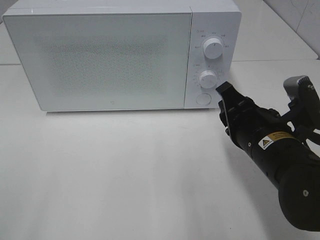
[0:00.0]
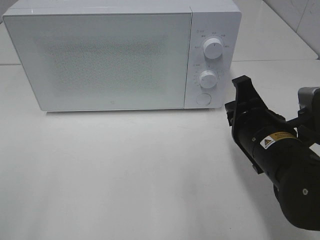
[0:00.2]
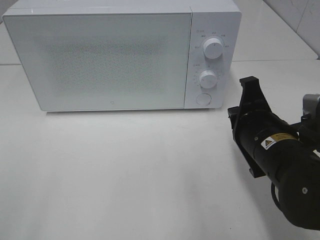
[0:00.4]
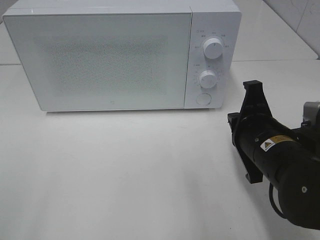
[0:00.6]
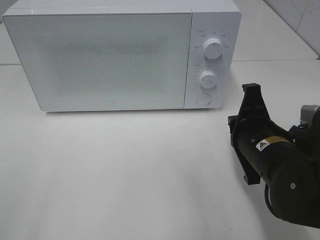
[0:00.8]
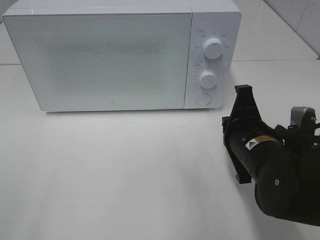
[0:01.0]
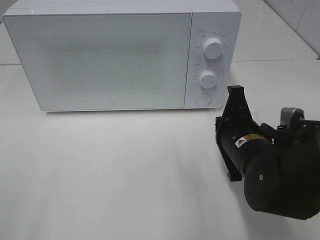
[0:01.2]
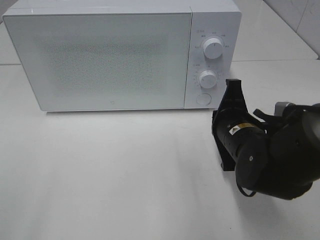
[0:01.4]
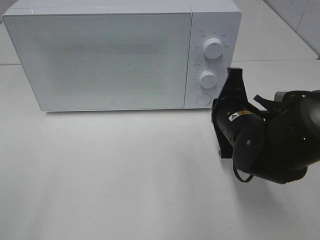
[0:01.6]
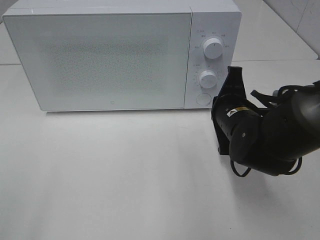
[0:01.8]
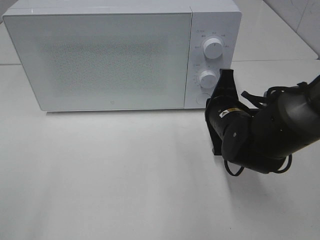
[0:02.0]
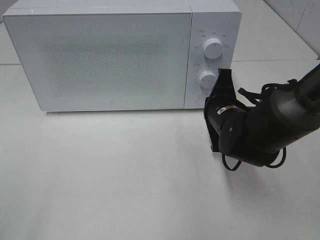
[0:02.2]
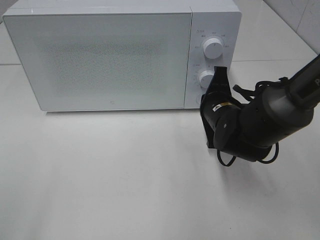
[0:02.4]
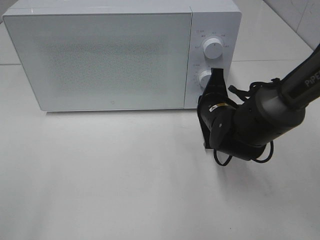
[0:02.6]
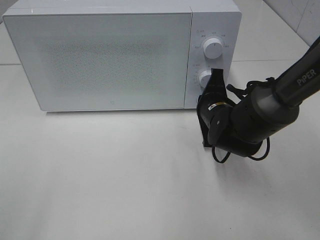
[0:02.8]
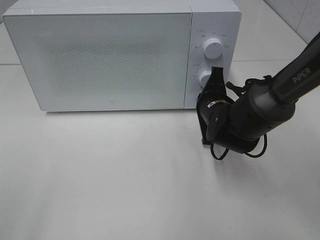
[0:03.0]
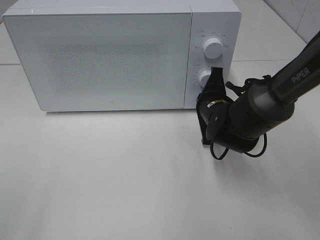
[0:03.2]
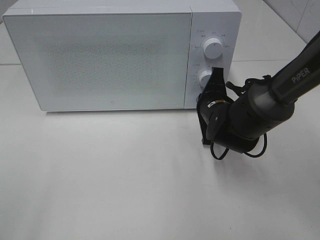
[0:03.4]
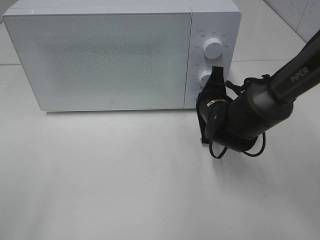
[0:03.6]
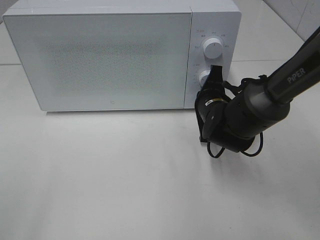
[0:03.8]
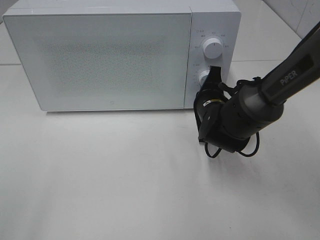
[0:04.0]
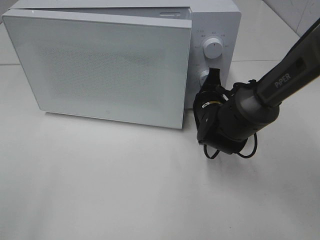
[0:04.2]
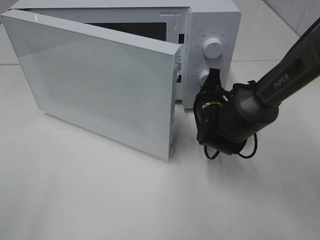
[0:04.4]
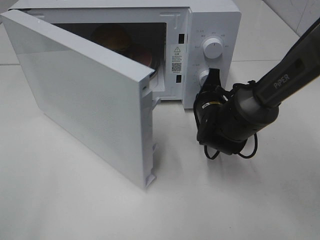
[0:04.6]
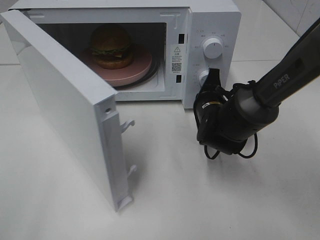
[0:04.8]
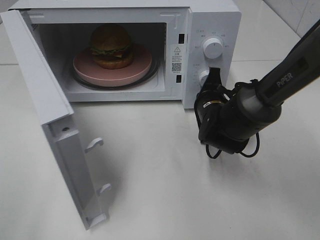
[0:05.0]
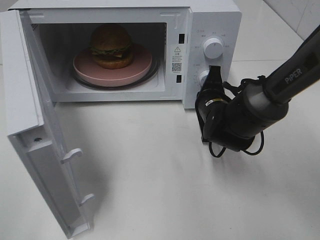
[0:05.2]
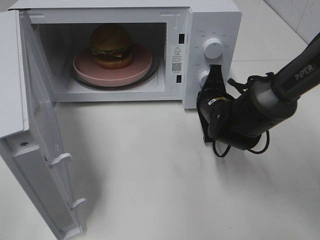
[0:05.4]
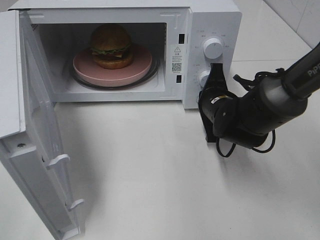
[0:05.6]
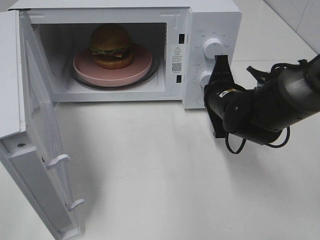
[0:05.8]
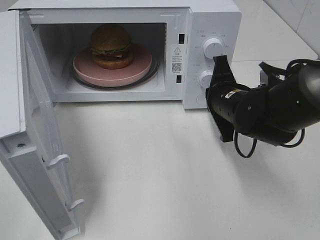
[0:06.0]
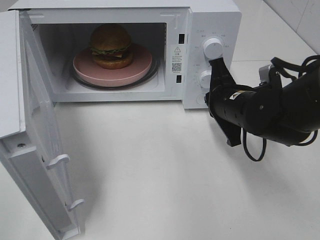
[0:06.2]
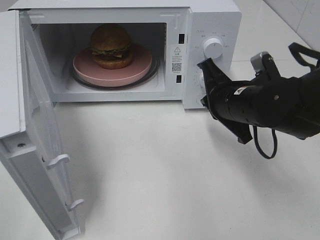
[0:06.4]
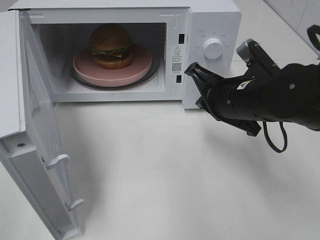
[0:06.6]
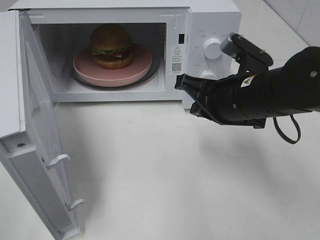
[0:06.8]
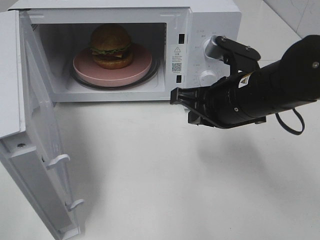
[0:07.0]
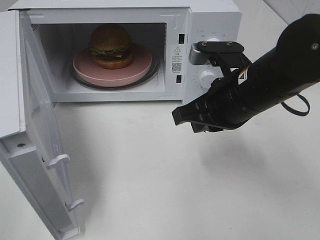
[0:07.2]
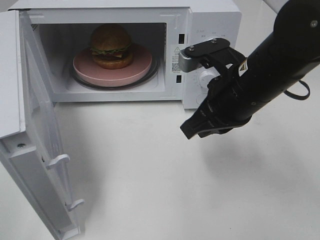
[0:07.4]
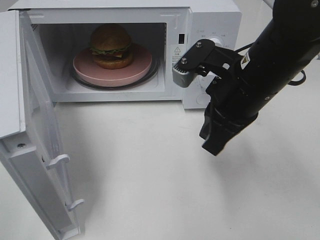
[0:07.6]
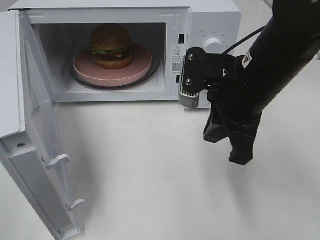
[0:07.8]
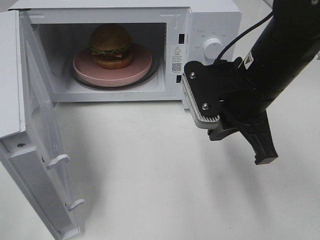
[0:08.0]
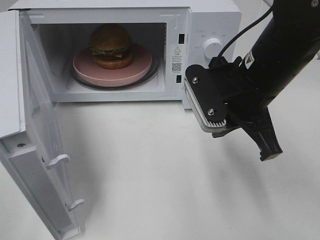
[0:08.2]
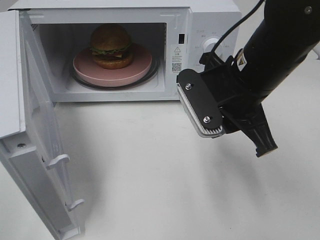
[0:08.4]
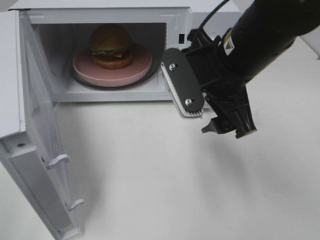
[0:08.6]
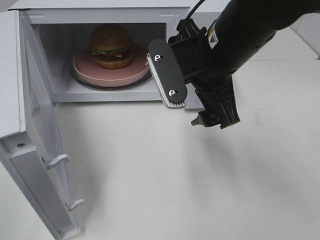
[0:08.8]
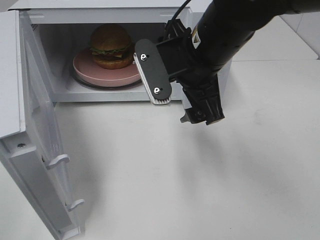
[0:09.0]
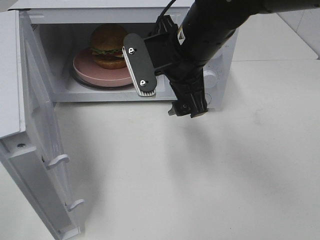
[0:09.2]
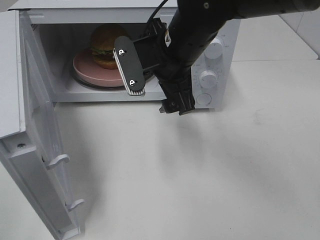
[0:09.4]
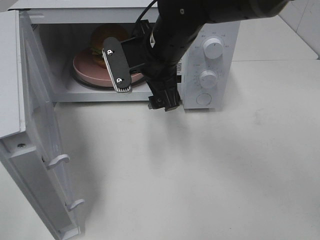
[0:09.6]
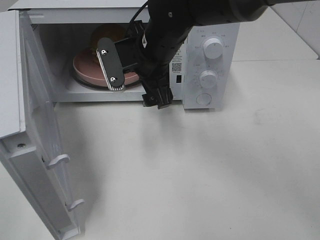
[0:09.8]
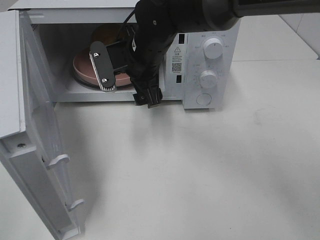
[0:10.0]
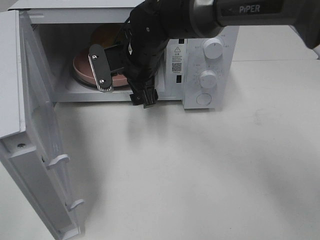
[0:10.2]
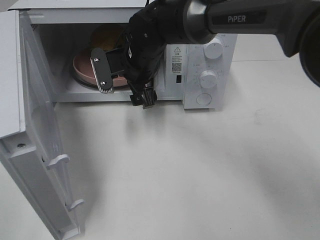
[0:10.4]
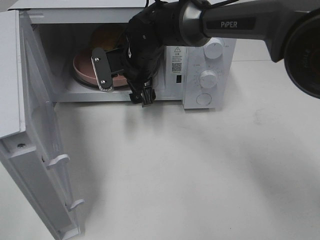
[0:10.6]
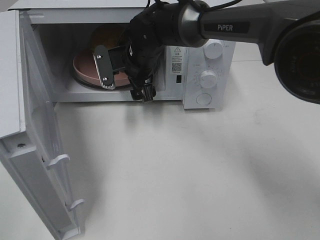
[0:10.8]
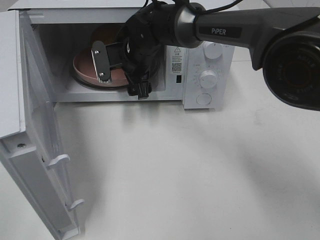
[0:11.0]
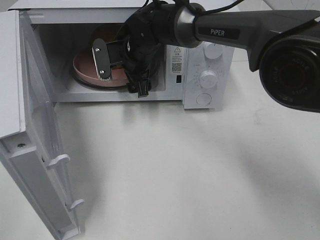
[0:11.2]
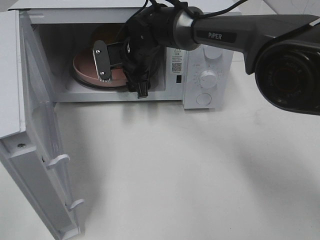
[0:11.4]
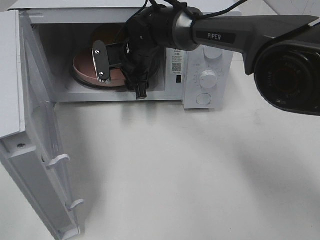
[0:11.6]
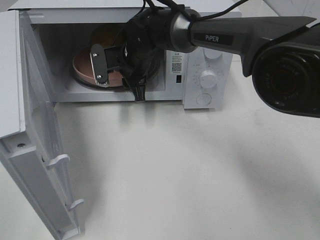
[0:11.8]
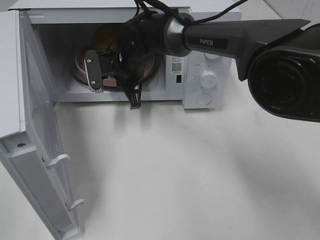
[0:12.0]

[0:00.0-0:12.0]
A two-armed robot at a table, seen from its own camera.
Task of the whole recording: Heat the burger.
Step, 0:00.0 to 0:05.6: Right hand: press the switch.
Step, 0:05.8 to 0:12.0: Right hand: grab the plate with the hamburger.
0:00.0 to 0:01.6: The right gripper moves forward, roughly 5 cm.
0:01.6 to 0:03.0: The right gripper is displaced forward by about 5 cm.
0:03.0 to 0:04.4: The grippers make only small movements.
0:04.4 to 0:06.0: The right gripper travels upward by some 5 cm.
0:06.0 to 0:07.6: The right gripper is displaced upward and backward by approximately 10 cm.
0:07.6 to 0:09.0: The right gripper moves to the left, about 5 cm, and opens.
0:09.0 to 0:10.4: The right gripper travels forward, to the left and downward by some 15 cm.
0:10.4 to 0:12.0: The right gripper closes.

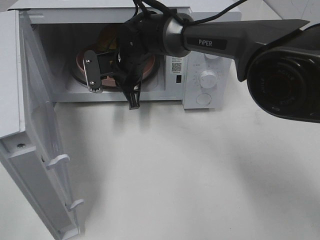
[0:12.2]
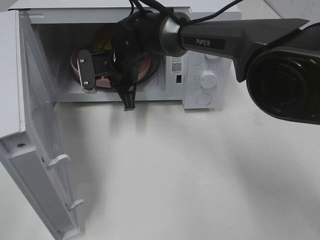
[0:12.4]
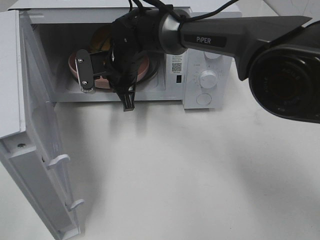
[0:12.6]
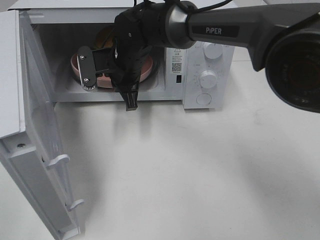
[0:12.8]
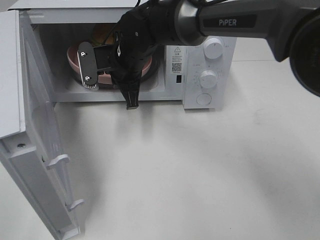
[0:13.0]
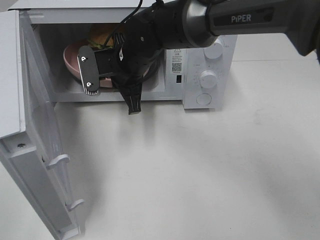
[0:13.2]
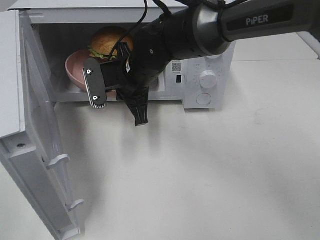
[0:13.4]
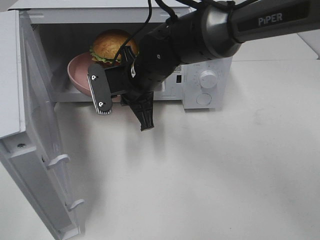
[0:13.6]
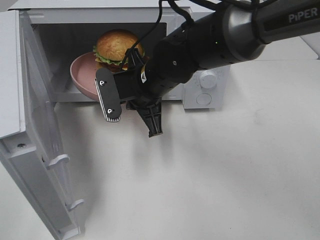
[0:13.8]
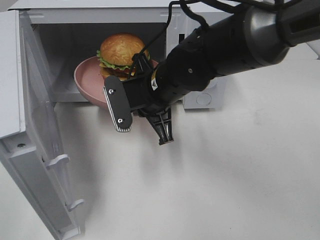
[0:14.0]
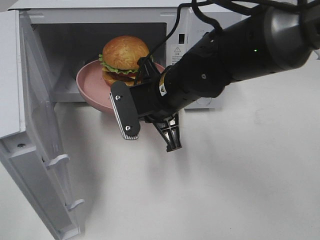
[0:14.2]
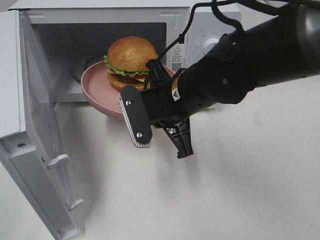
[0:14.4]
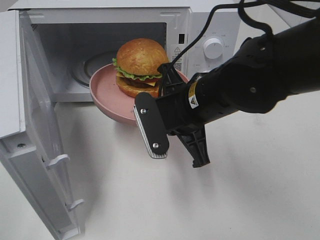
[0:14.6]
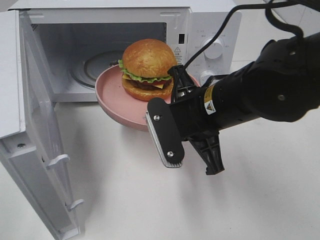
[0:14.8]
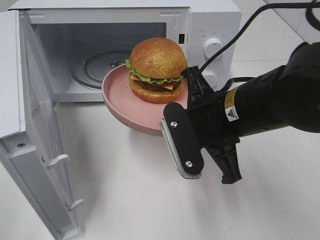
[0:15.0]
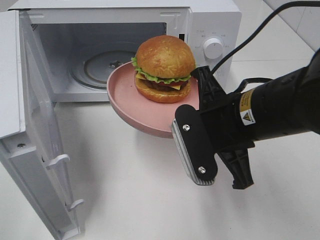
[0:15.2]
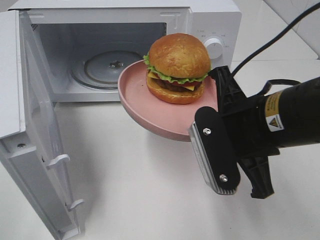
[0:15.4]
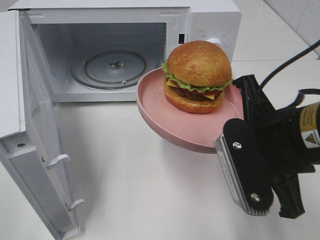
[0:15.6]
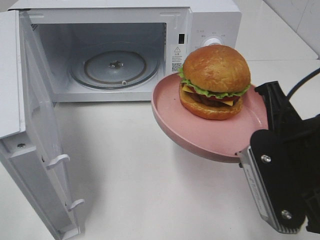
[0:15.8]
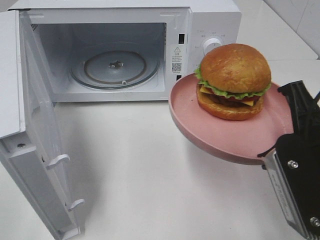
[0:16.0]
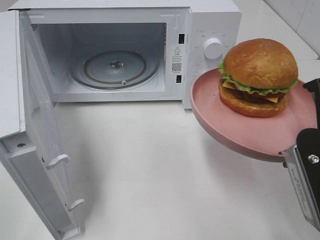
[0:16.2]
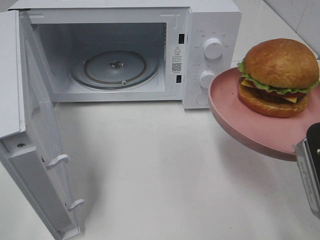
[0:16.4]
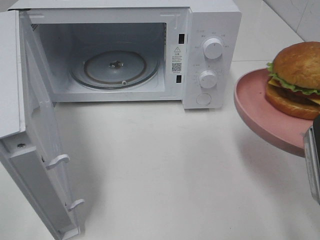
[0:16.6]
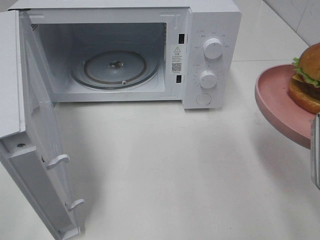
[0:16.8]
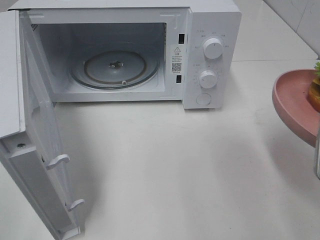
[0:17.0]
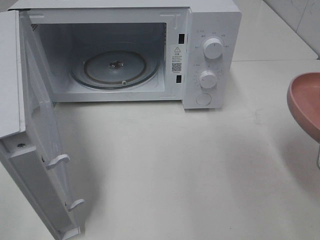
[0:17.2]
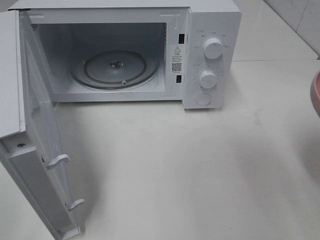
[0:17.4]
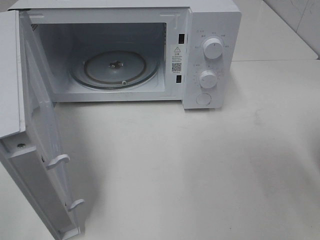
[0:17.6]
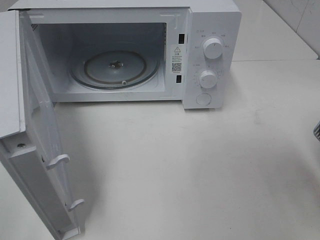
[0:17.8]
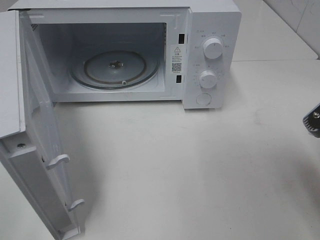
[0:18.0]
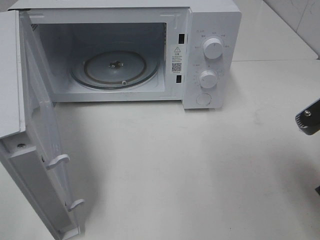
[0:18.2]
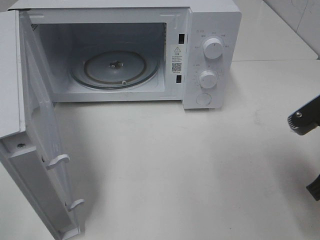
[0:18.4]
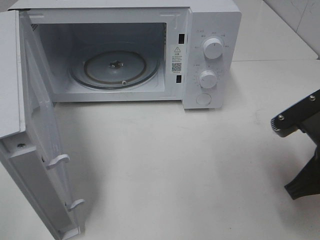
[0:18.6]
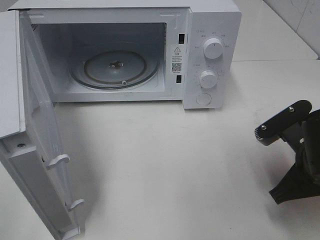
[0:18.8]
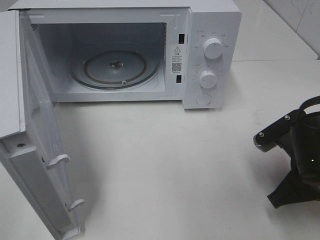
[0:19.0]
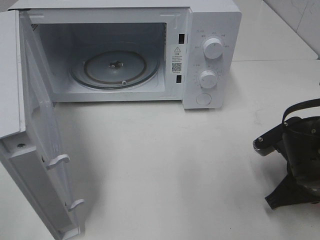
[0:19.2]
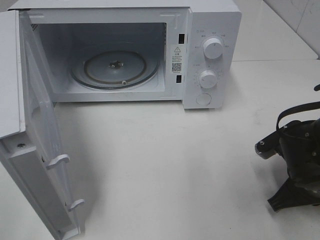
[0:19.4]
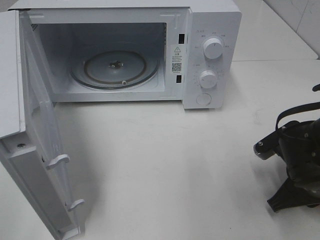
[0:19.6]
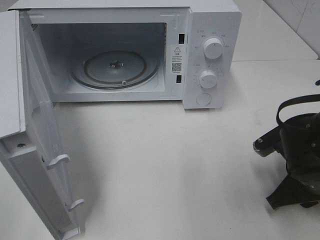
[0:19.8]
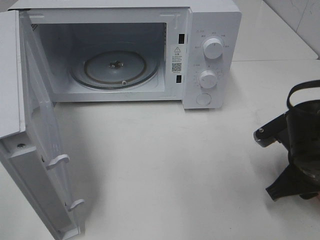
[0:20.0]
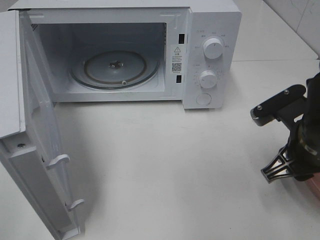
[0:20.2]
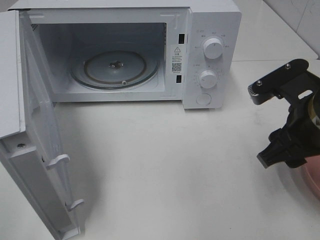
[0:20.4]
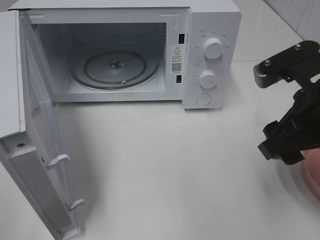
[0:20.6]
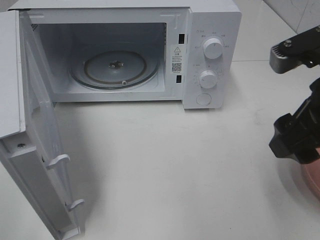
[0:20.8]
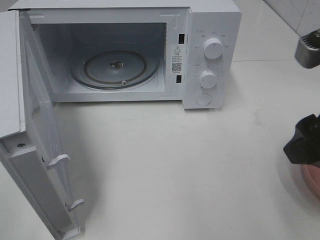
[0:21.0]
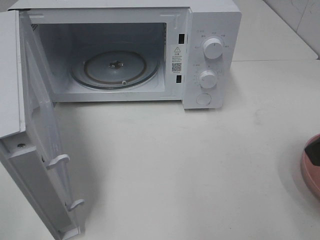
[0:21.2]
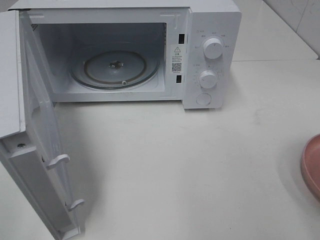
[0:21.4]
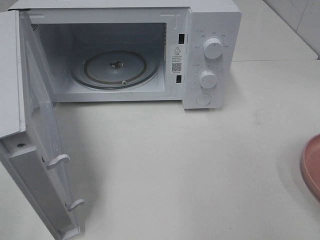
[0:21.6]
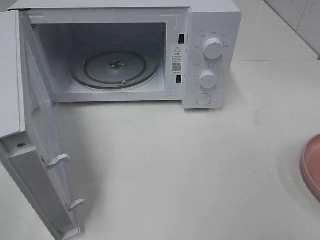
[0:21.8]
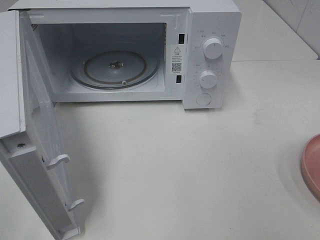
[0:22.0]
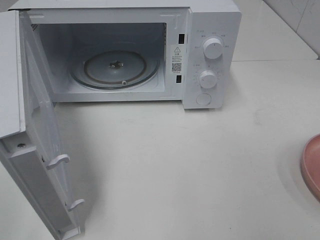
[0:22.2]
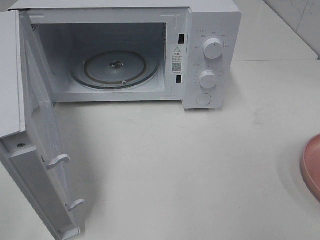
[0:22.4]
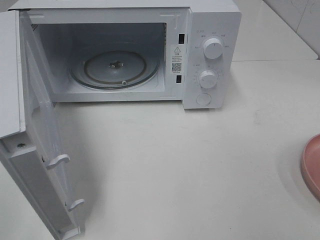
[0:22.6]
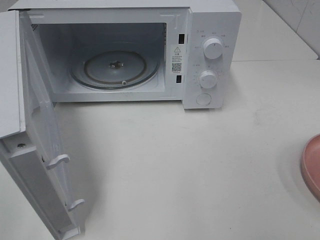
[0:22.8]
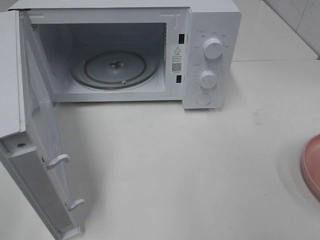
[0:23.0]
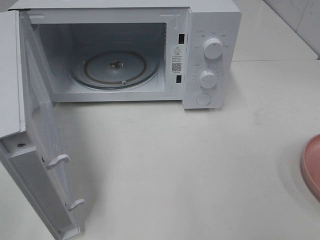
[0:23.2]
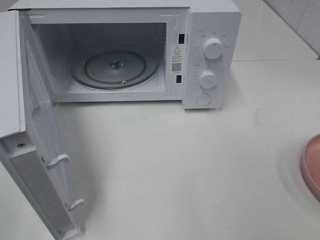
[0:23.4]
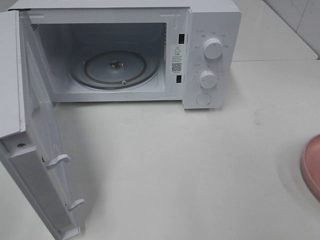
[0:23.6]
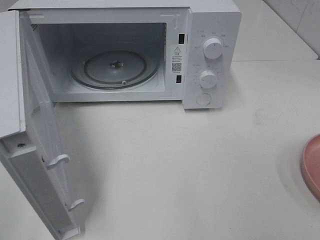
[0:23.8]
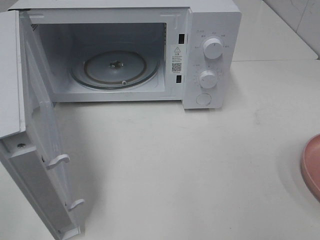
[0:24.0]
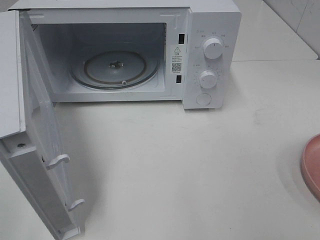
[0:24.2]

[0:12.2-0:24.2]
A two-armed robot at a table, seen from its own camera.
Task of the whole recording: Heat the burger.
Step, 0:12.2 to 0:19.6: Right hand: place the plate on the table.
0:12.2 to 0:13.8: The right gripper moves backward, some 10 cm.
0:13.8 to 0:15.2: The right gripper travels backward and to the right by approximately 15 cm.
0:15.2 to 0:16.6: The right gripper travels to the right and backward by approximately 15 cm.
0:18.2 to 0:19.8: The right gripper goes about 10 cm downward, and opens.
0:19.8 to 0:21.2: The right gripper is displaced upward by approximately 20 cm, and opens up.
0:21.2 to 0:22.6: The right gripper heads backward and to the right, covering about 15 cm.
